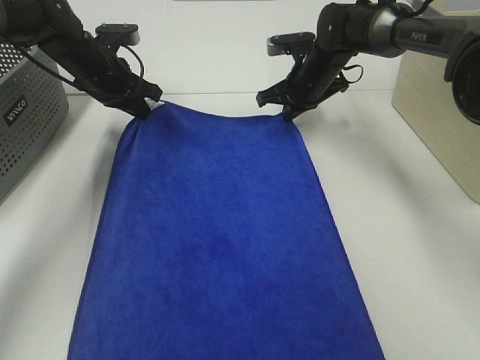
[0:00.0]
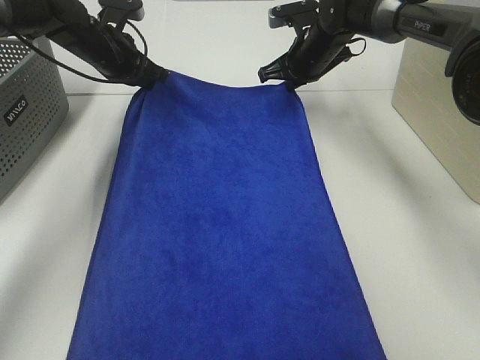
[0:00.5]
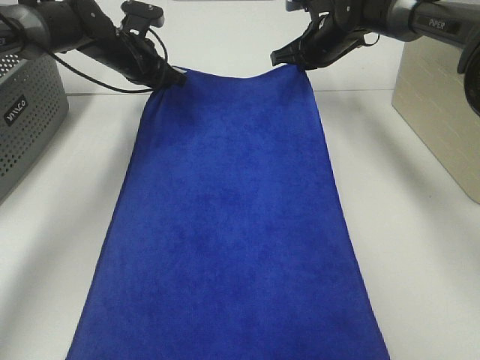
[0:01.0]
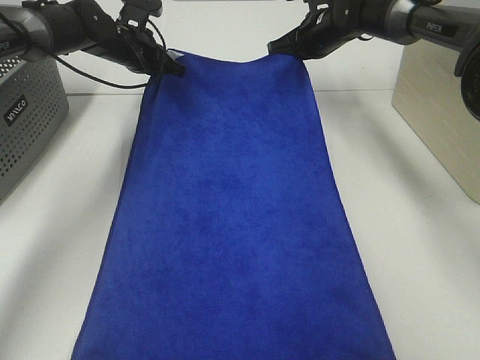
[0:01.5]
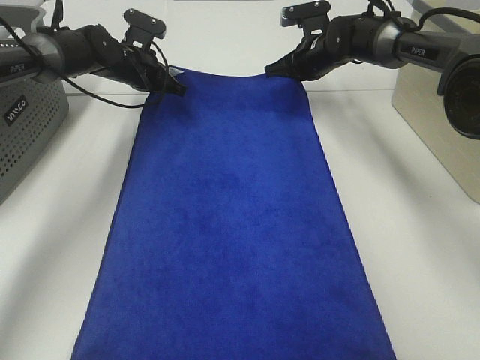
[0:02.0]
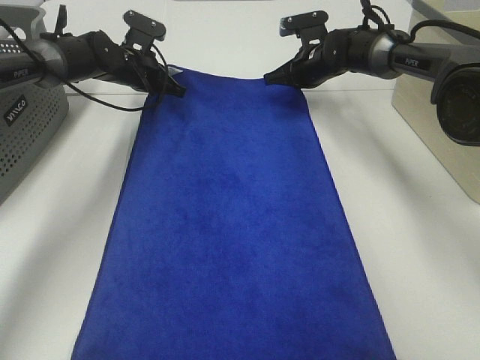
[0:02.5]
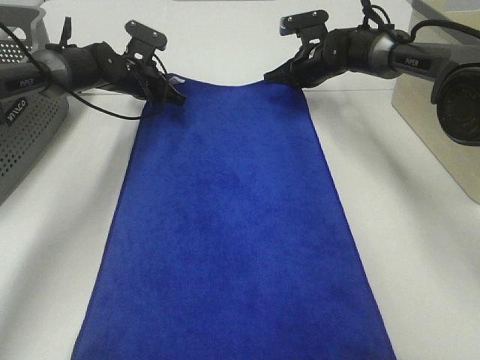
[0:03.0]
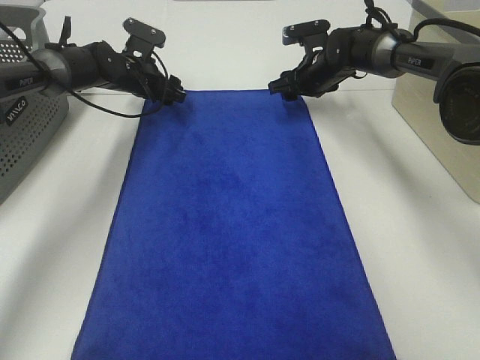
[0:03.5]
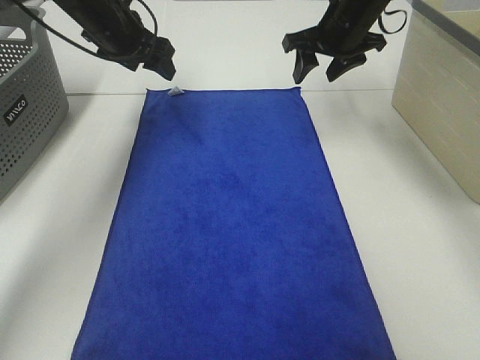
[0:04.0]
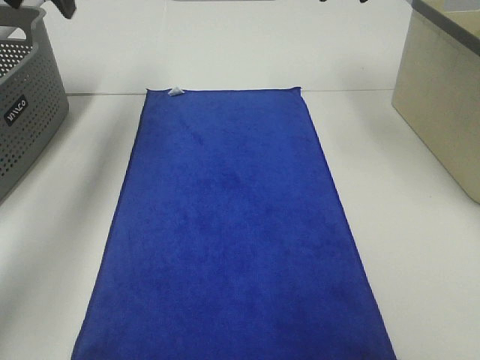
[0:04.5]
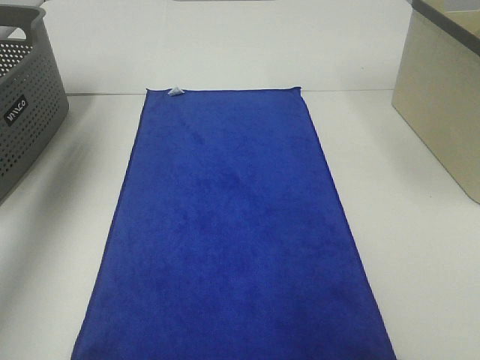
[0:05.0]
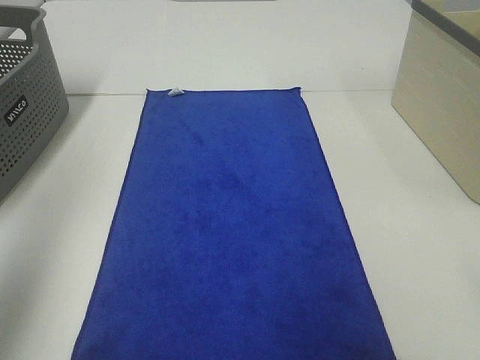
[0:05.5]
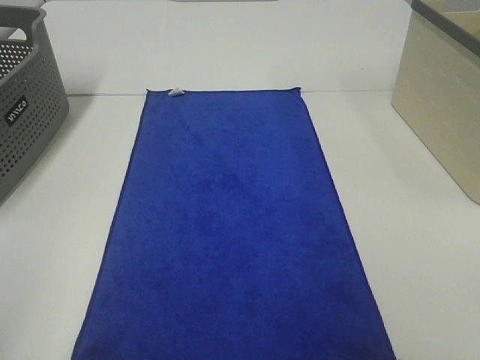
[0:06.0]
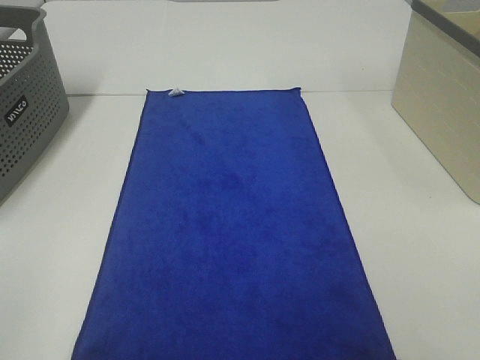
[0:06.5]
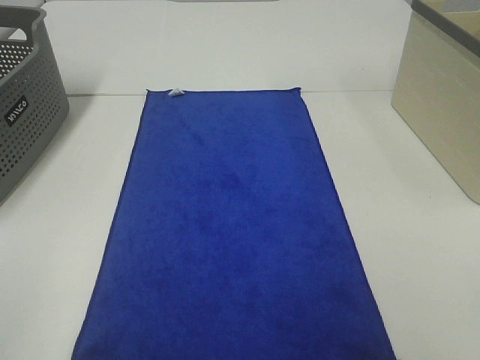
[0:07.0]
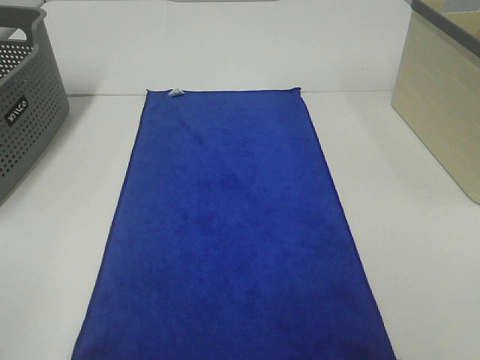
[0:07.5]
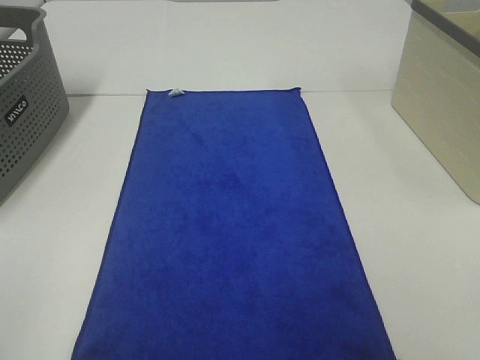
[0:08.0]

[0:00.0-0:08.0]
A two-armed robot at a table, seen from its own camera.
Task of the whole recording: Remove the towel and place it.
0:00.0 to 0:02.0: The left gripper shifts approximately 5 cm forward.
0:02.0 to 0:04.0: The left gripper moves upward, some 10 cm, and opens. The right gripper goes approximately 10 cm upward and backward, and opens its fingers.
0:04.0 to 0:06.0: Both grippers travel together backward, about 50 cm.

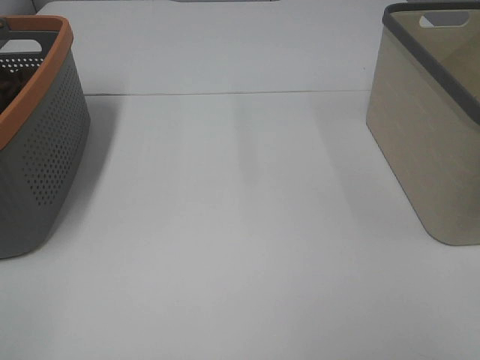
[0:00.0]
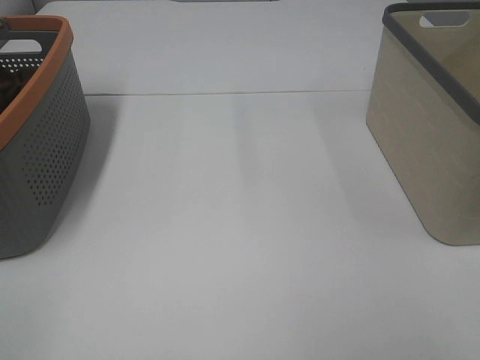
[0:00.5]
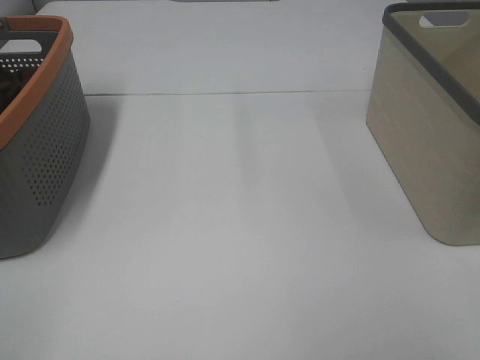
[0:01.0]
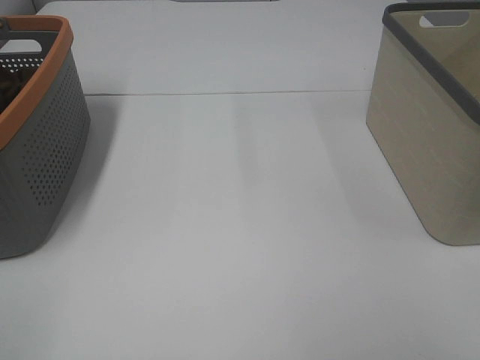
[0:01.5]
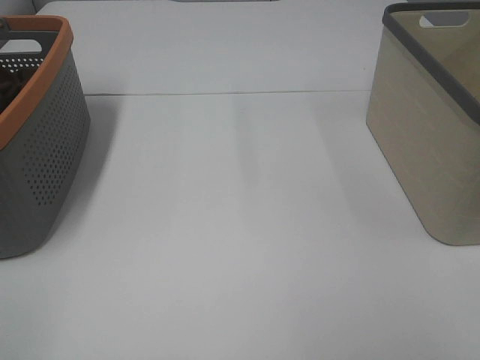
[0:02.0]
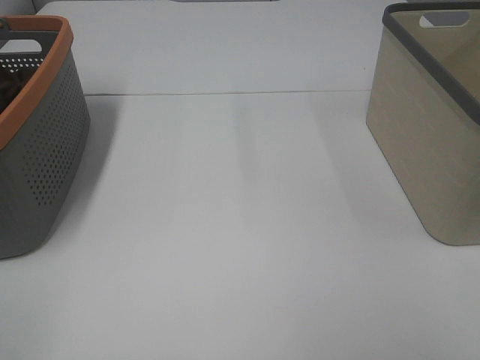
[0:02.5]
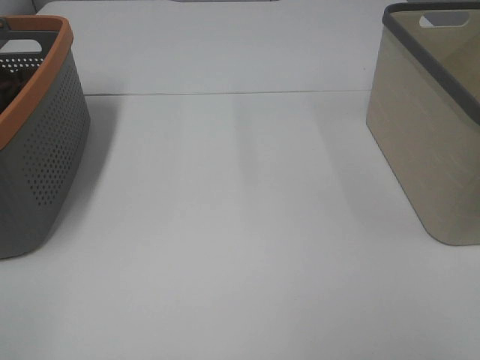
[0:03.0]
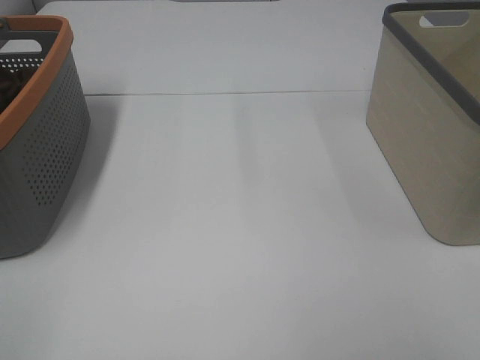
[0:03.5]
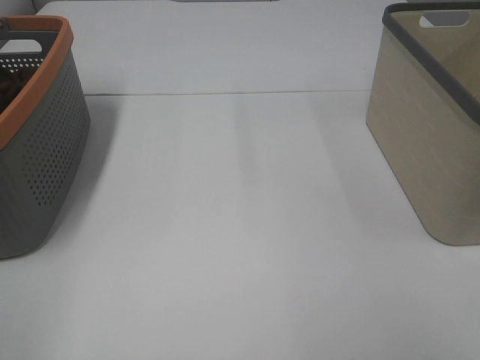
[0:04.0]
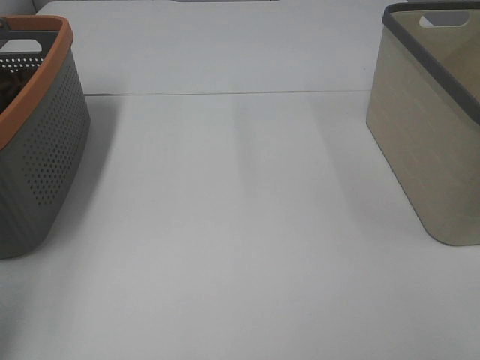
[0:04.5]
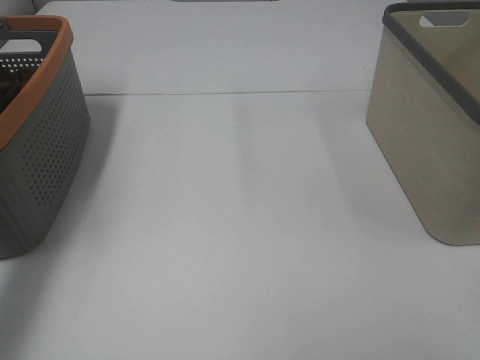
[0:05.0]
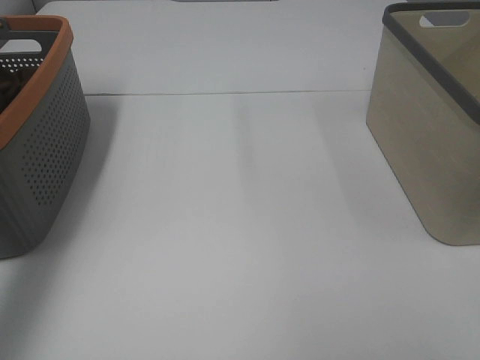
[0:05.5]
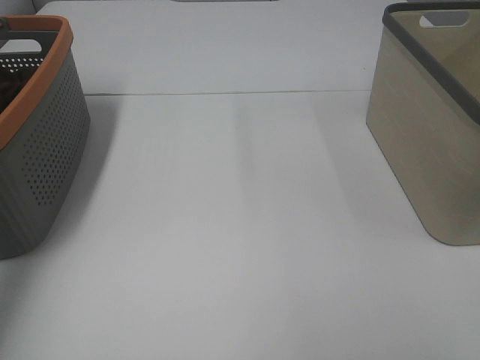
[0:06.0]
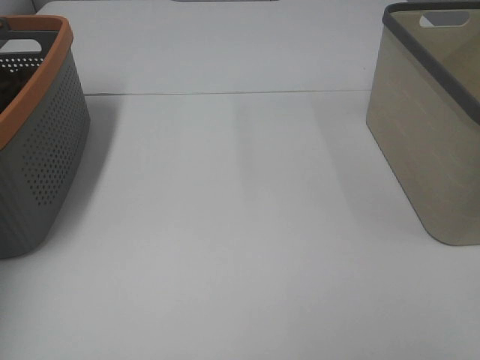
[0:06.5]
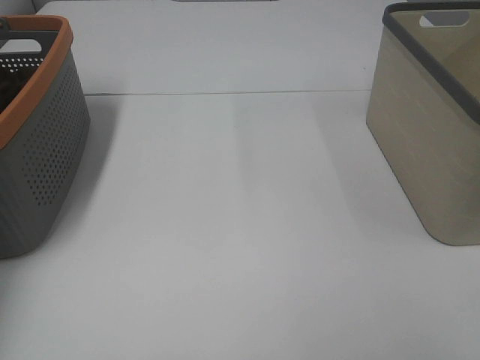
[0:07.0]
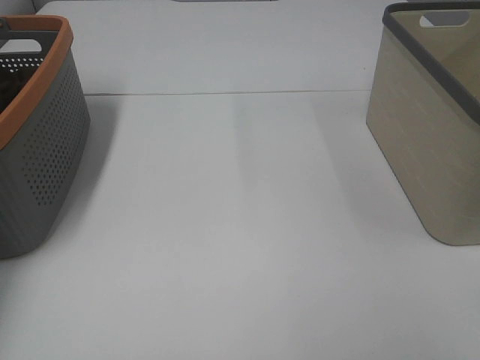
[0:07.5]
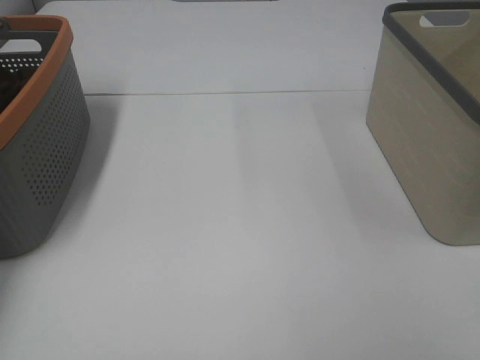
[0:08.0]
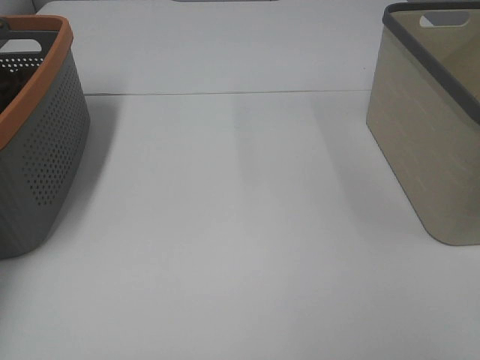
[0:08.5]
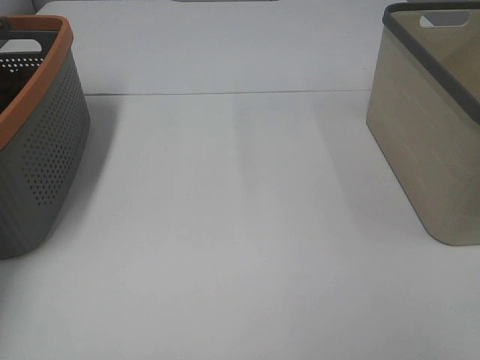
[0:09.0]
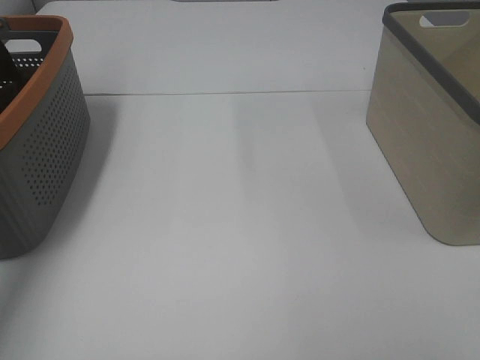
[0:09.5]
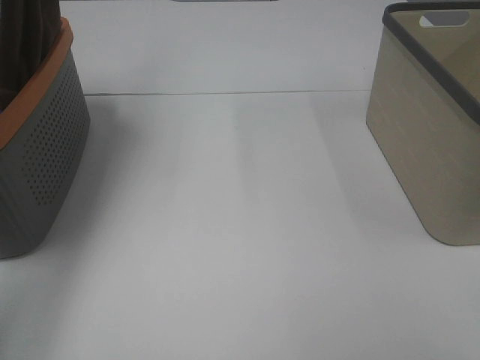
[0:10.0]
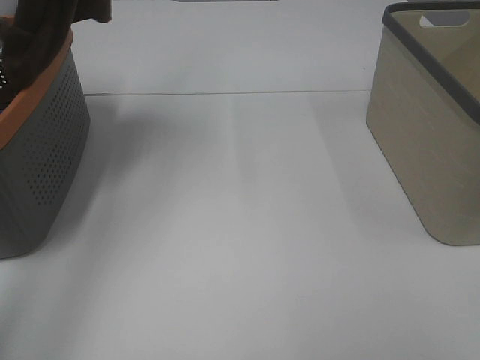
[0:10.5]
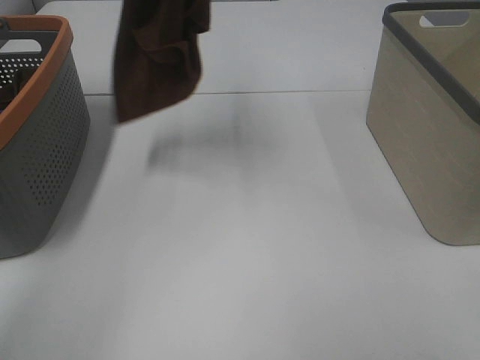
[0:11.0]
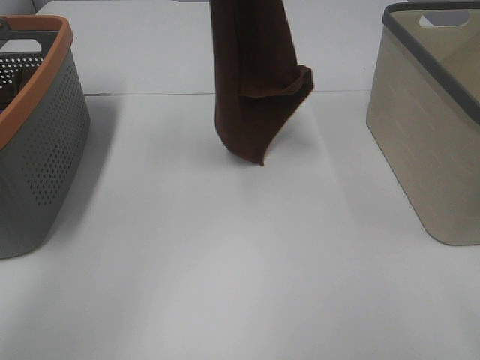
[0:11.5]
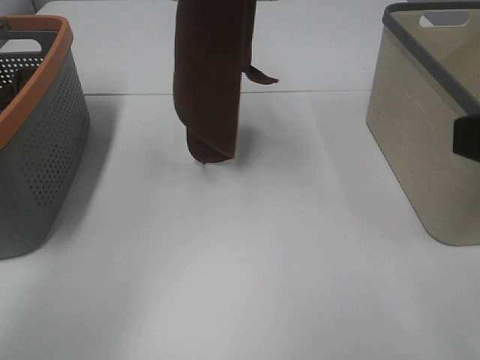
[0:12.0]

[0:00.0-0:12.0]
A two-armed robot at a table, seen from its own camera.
Task of the whole recording: Remove the towel and place it.
0:00.0 to 0:02.0: Both grippers stay about where they are.
0:04.0 to 0:06.0: The left gripper heads forward, covering roughly 35 cm.
0:06.0 to 0:08.0: The left gripper heads downward and forward, covering roughly 15 cm.
0:08.0 to 0:10.0: The left gripper moves upward and to the right, about 30 cm, and closes up.
0:10.0 to 0:12.0: The right gripper heads forward, covering some 10 cm. Meanwhile the left gripper heads to the right, covering roughly 20 cm.

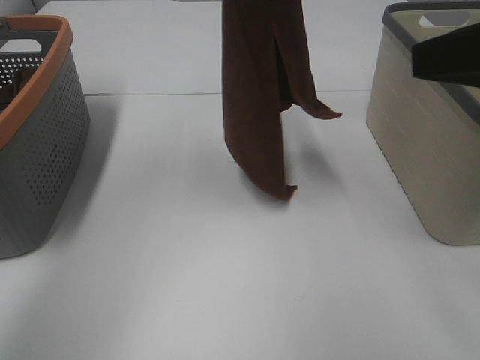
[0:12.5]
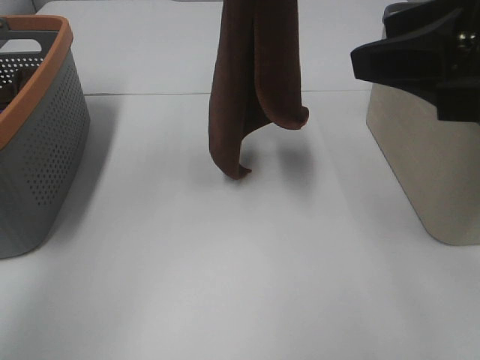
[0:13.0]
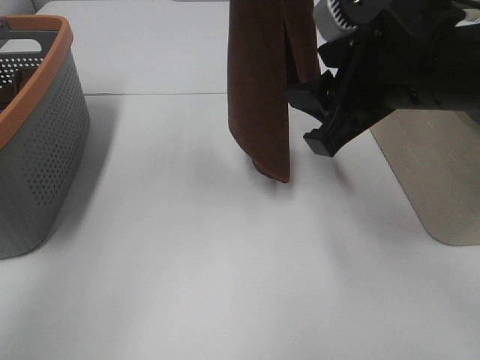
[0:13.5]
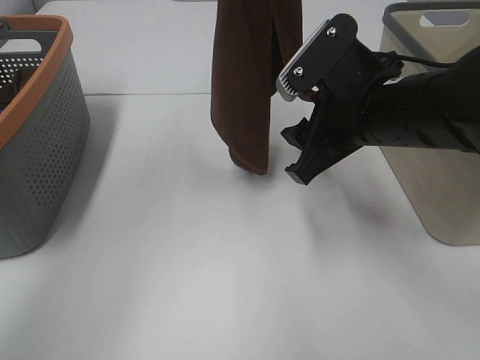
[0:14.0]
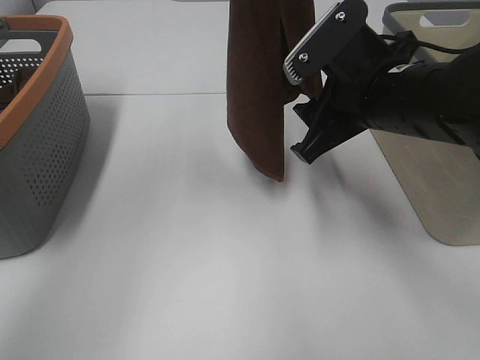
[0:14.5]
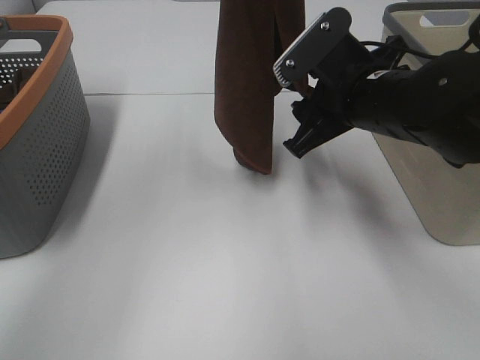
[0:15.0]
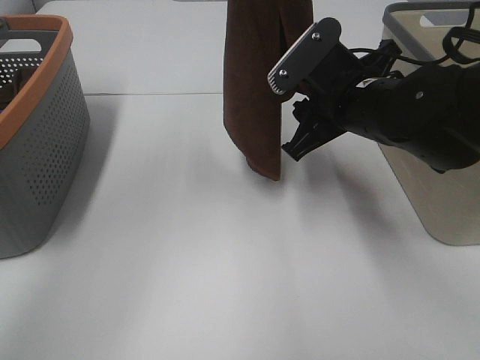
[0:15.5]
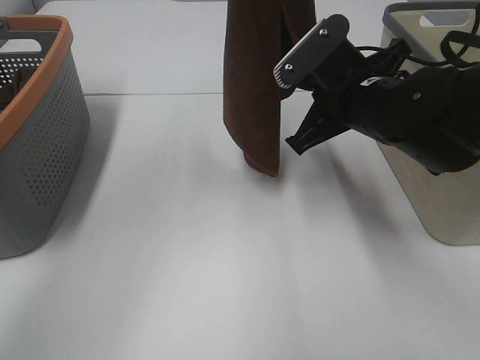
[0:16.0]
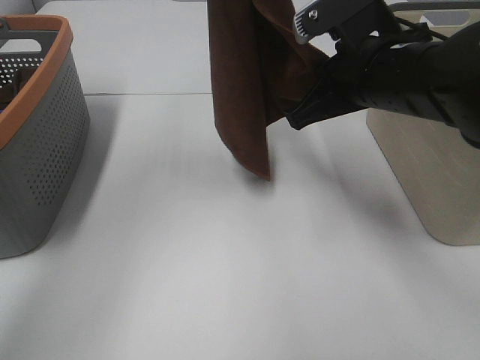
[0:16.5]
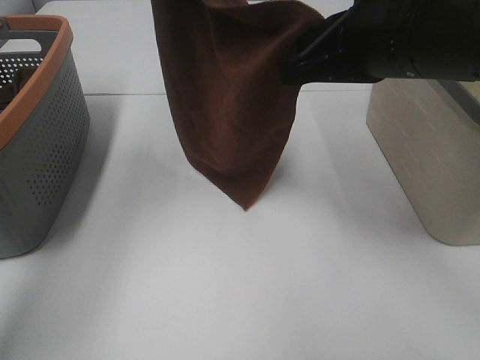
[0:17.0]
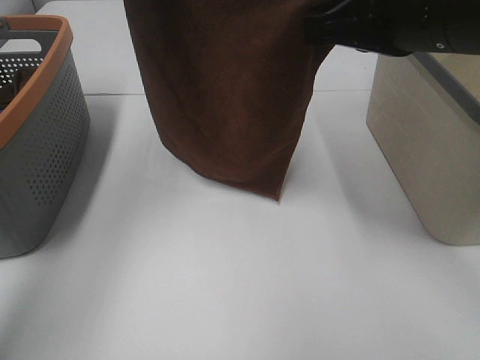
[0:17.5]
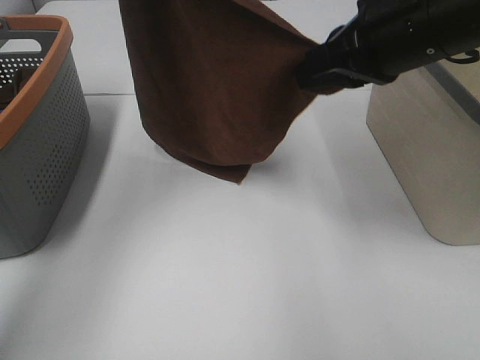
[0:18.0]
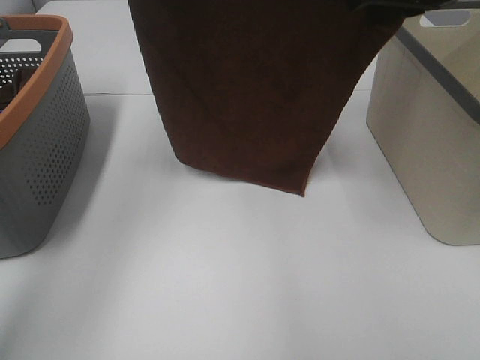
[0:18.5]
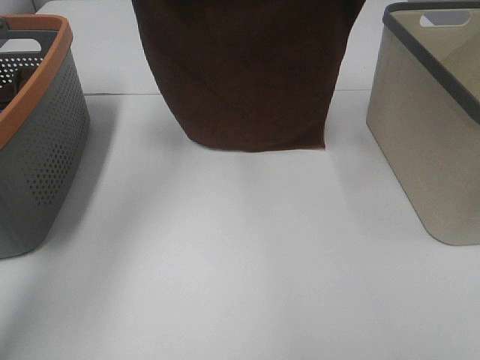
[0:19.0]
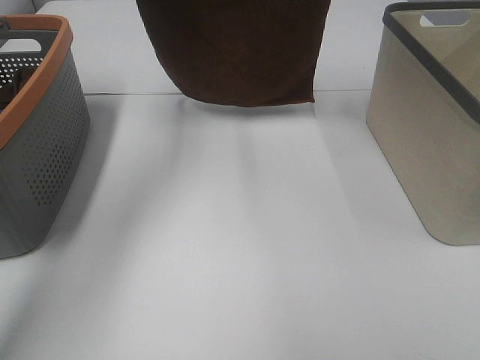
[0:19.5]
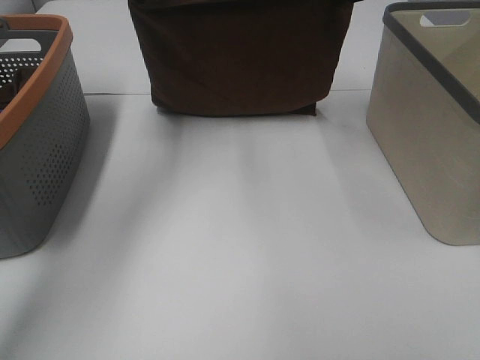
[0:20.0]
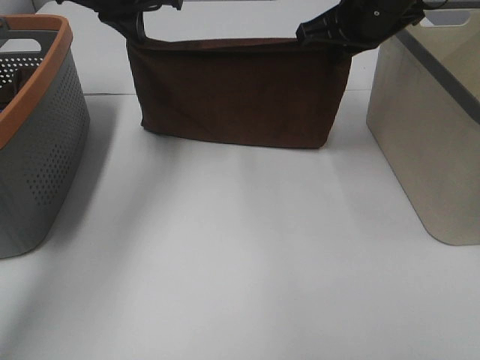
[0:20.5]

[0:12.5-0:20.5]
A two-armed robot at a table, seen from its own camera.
Task of the whole recording: Remove the towel and place it.
Step, 0:14.5 to 0:18.0: Right hand: spread the brown towel flat on the table.
Step, 0:14.5 to 0:18.5: Left hand: spread the brown towel flat on the table.
0:12.5 to 0:14.5: The right gripper moves downward, forward and to the left, some 20 cm.
0:14.5 to 0:16.5: The right gripper closes its fingers.
0:16.5 to 0:18.5: The right gripper travels upward by approximately 10 cm. Meanwhile the left gripper is displaced to the left by some 5 cm.
0:18.5 to 0:20.5: The right gripper heads forward and downward, covering roughly 10 cm; the left gripper travels downward and forward by roughly 15 cm.
